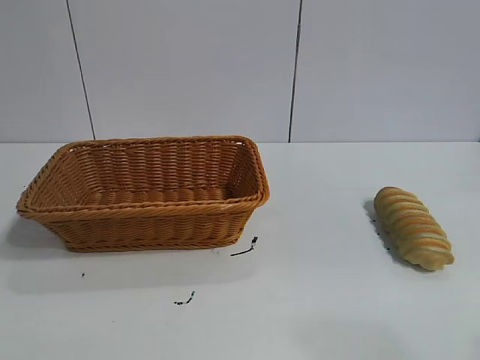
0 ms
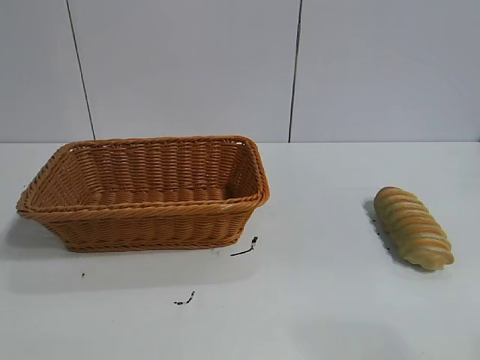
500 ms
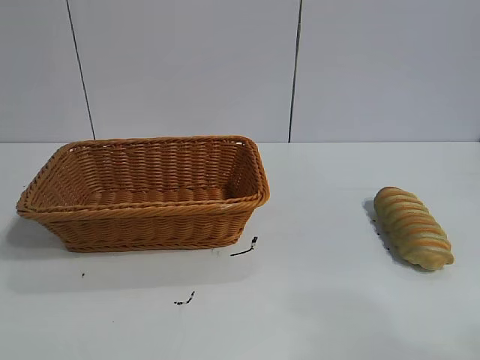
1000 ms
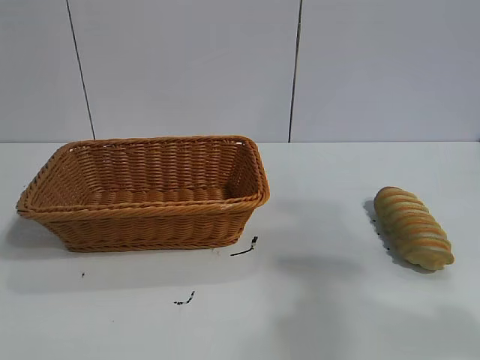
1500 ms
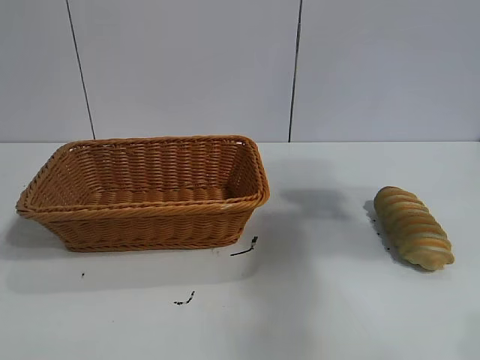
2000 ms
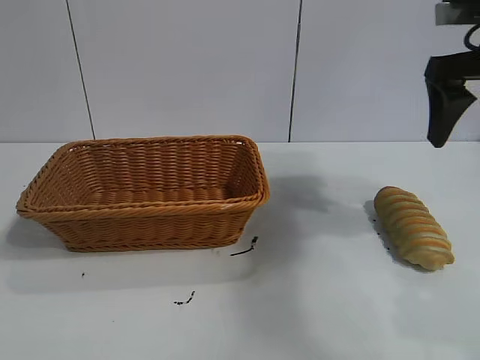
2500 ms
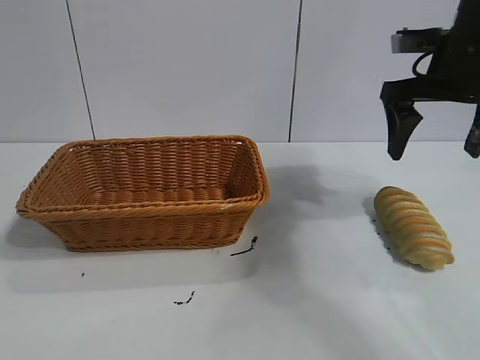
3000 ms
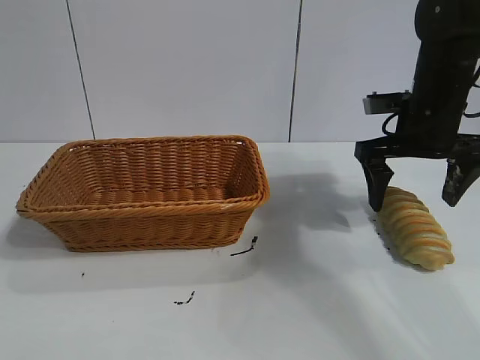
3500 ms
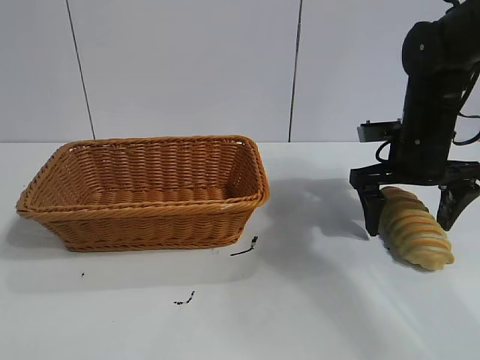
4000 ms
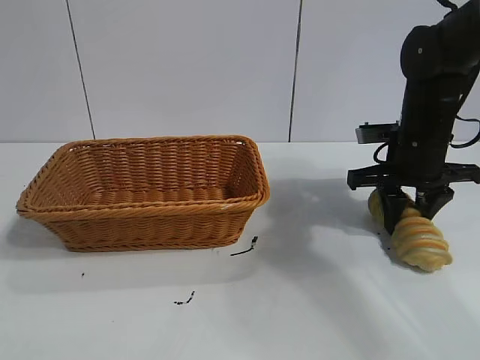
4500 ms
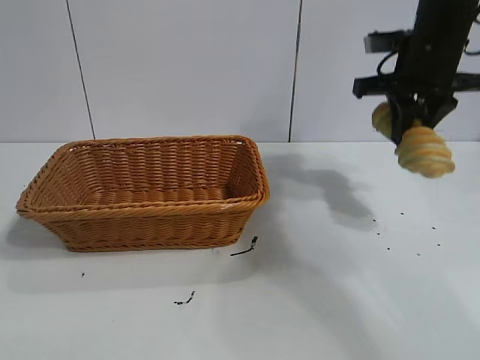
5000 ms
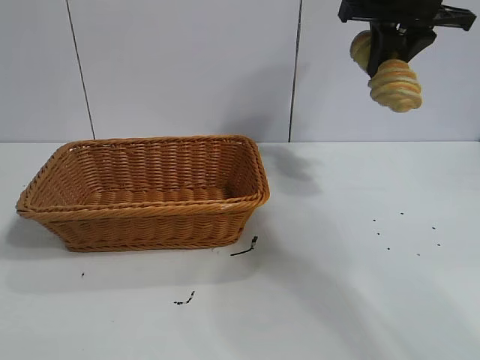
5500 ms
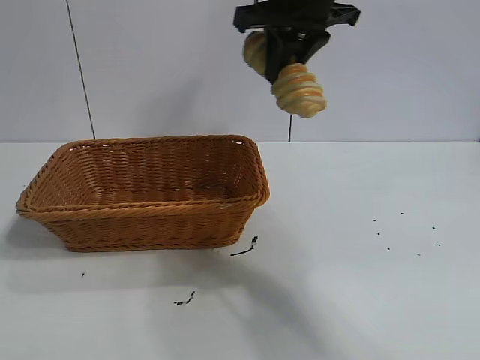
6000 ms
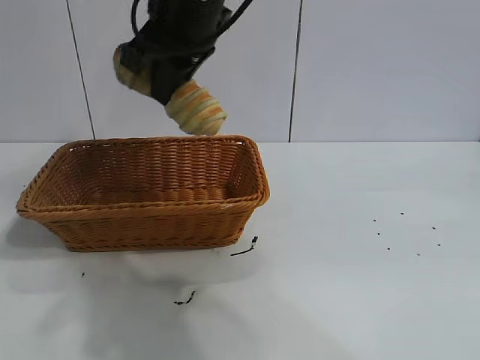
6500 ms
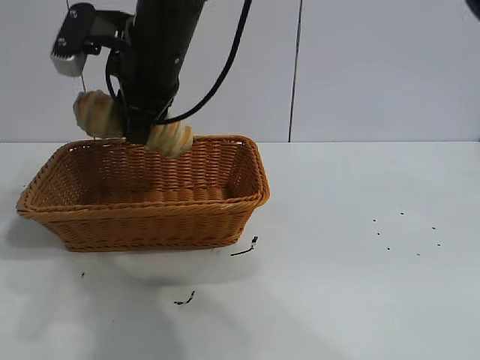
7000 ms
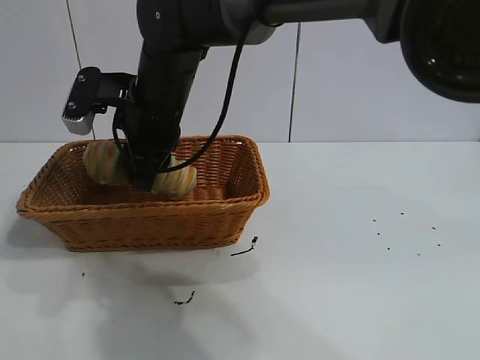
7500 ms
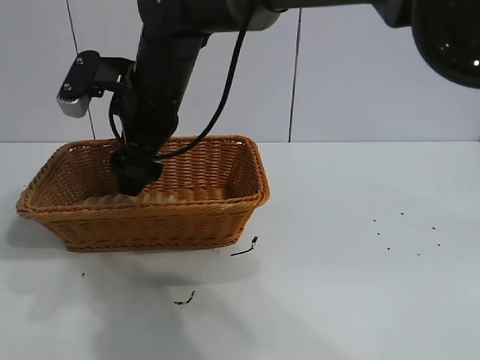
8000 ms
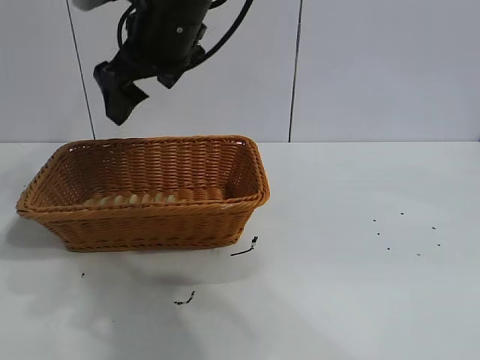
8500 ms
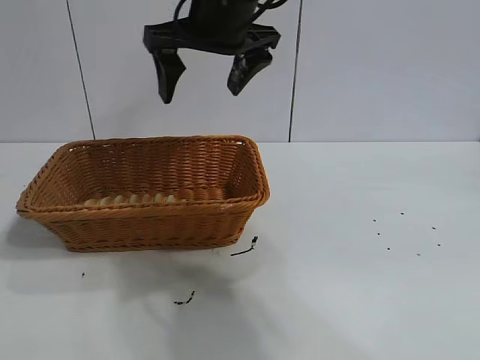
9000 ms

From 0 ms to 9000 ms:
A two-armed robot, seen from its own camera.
Task of the whole recording: pick up the long bread and put it into the basket.
Step, from 2500 ms to 4500 ms: Grasp the long bread with right gripper.
Step, from 5000 ms to 8000 ms: Place the long bread in the basket with right gripper.
